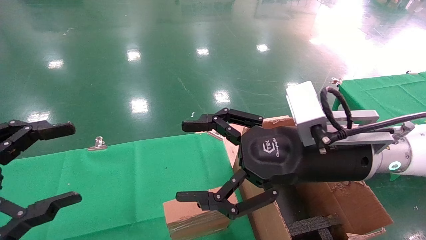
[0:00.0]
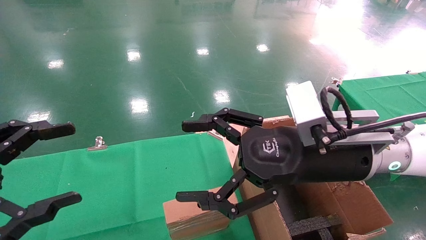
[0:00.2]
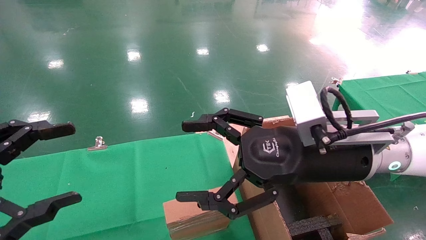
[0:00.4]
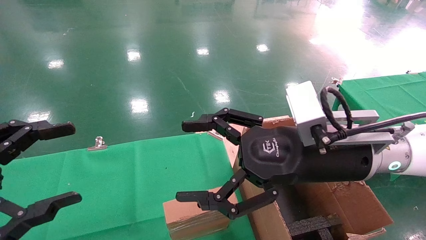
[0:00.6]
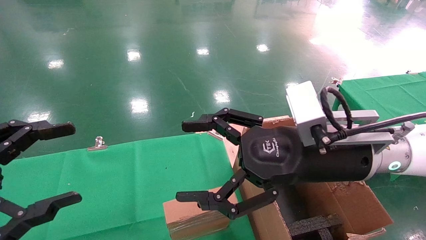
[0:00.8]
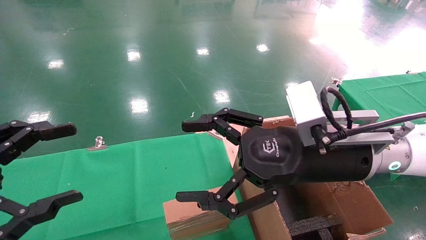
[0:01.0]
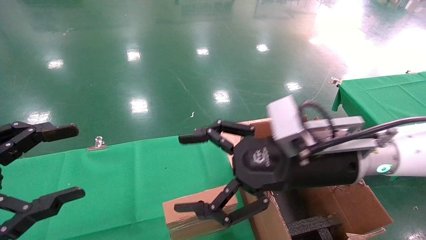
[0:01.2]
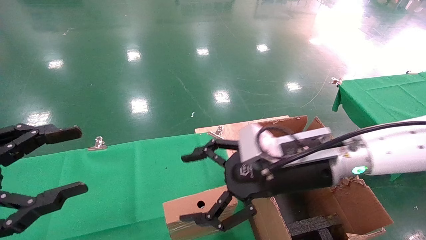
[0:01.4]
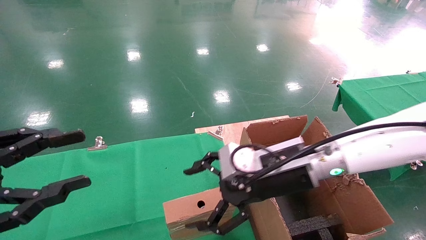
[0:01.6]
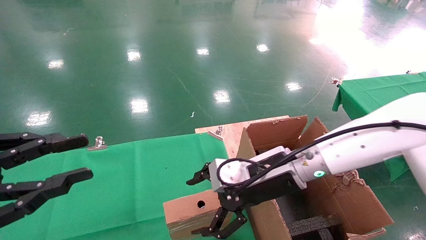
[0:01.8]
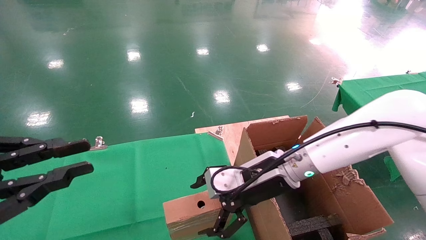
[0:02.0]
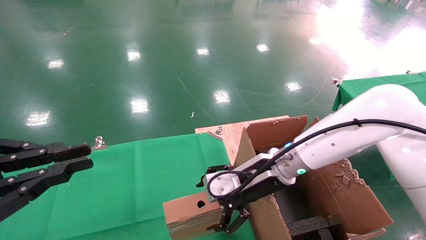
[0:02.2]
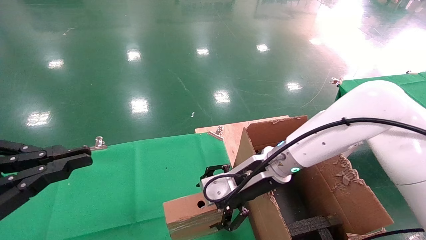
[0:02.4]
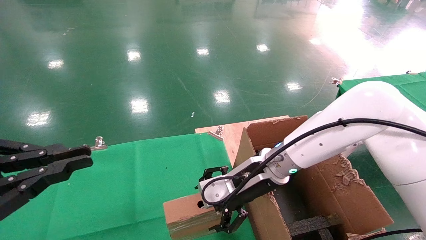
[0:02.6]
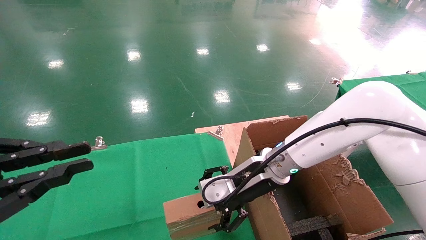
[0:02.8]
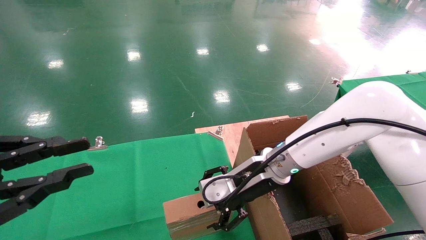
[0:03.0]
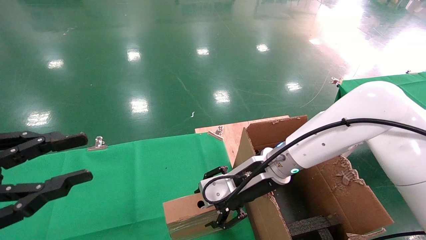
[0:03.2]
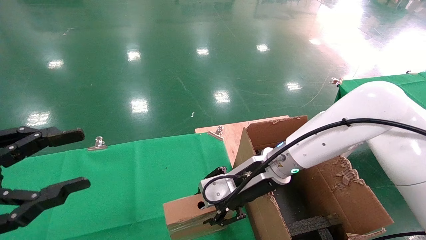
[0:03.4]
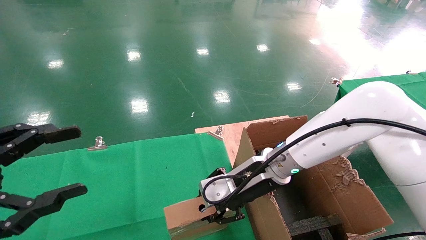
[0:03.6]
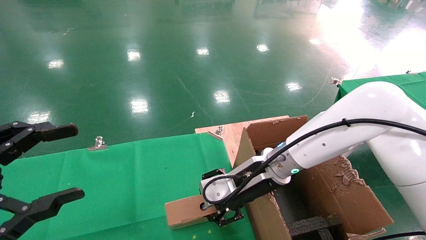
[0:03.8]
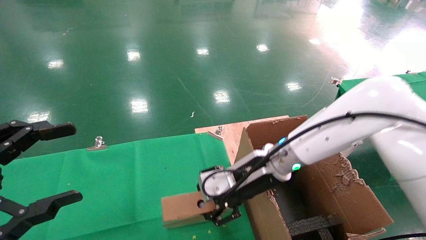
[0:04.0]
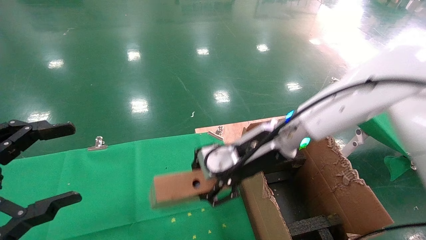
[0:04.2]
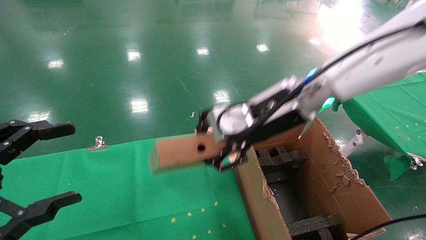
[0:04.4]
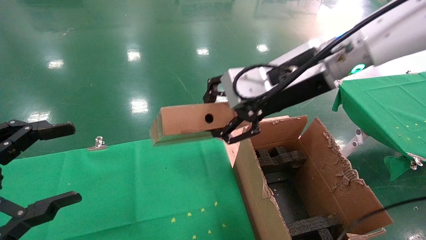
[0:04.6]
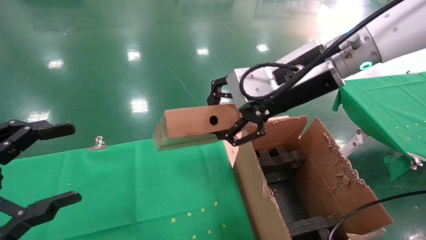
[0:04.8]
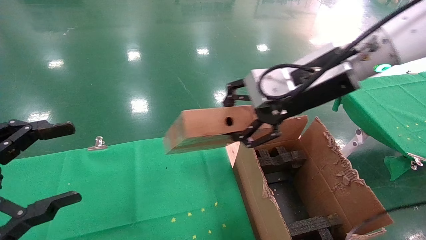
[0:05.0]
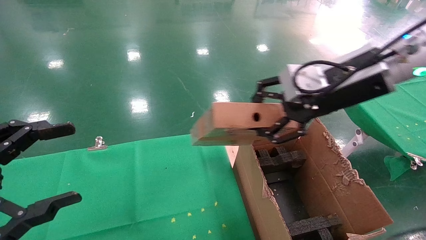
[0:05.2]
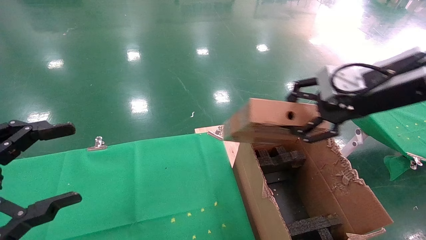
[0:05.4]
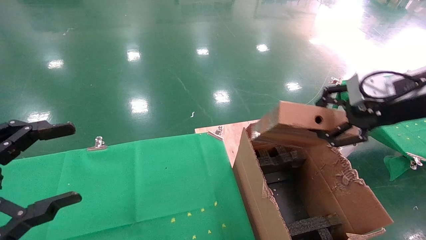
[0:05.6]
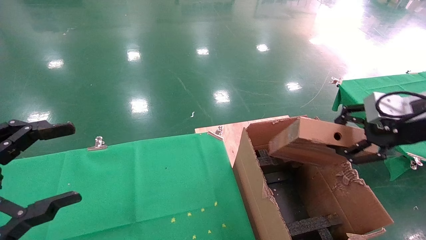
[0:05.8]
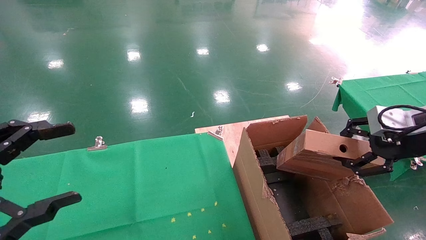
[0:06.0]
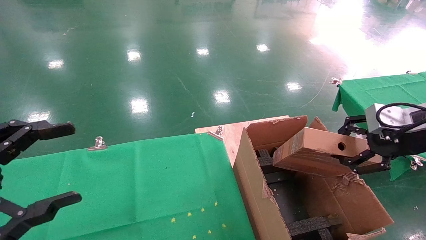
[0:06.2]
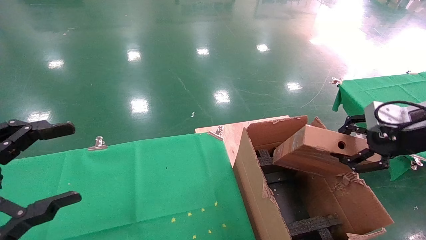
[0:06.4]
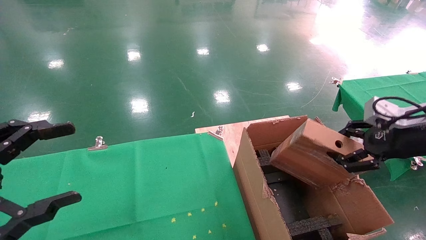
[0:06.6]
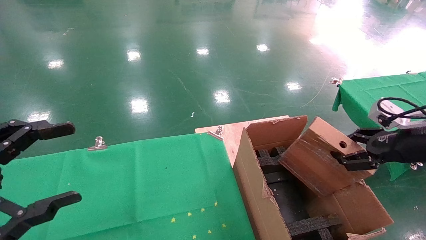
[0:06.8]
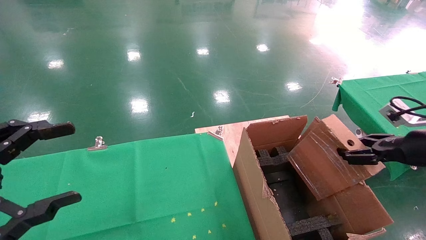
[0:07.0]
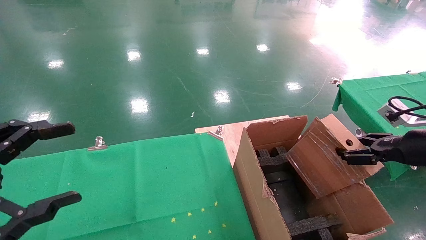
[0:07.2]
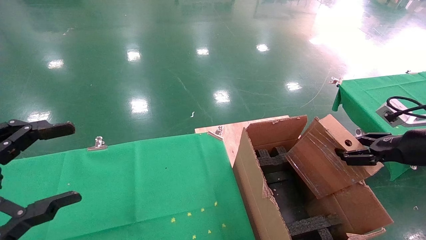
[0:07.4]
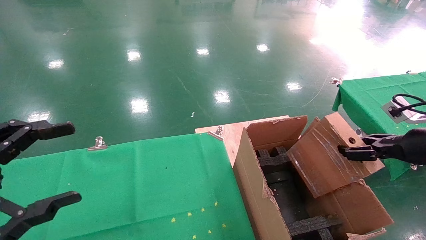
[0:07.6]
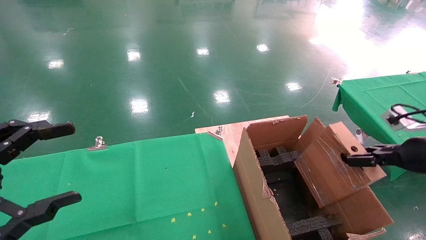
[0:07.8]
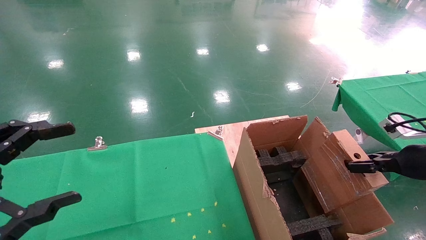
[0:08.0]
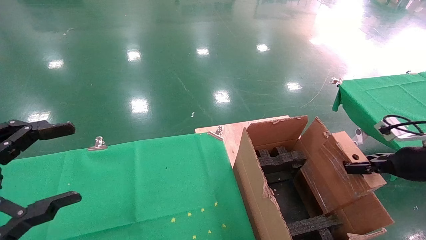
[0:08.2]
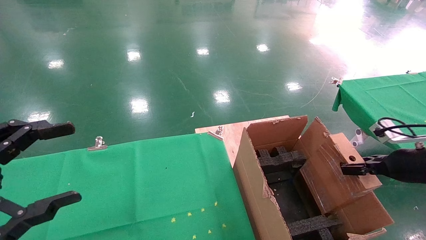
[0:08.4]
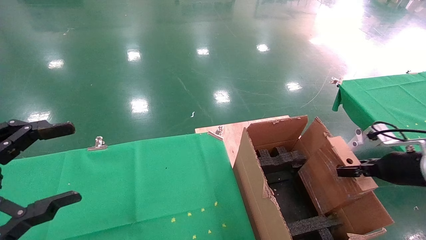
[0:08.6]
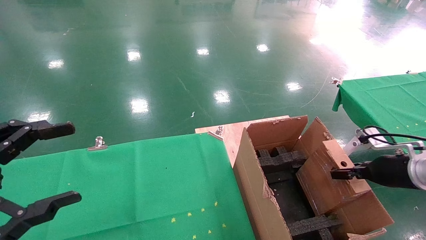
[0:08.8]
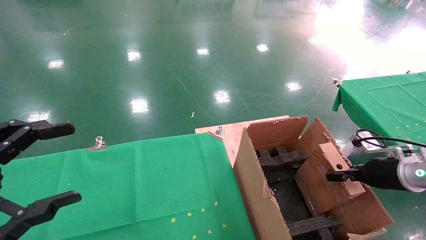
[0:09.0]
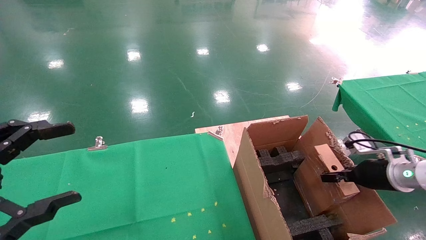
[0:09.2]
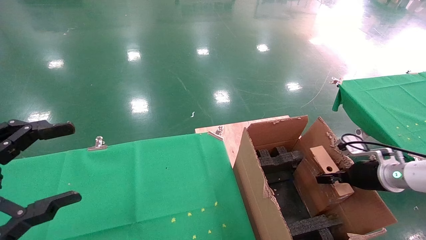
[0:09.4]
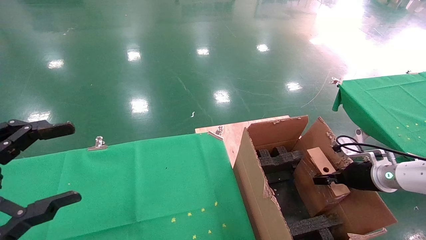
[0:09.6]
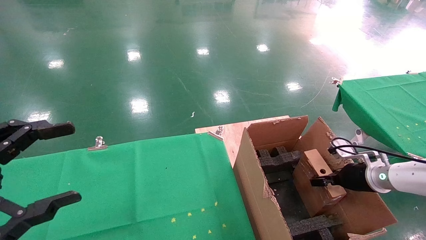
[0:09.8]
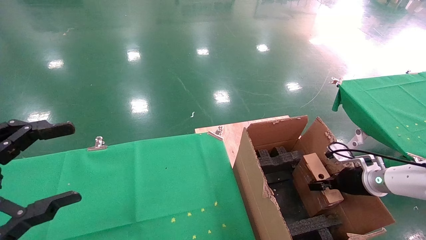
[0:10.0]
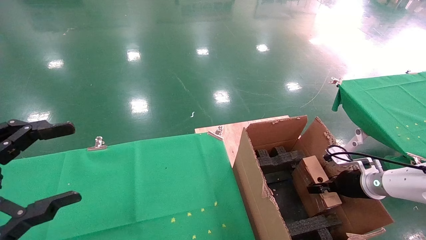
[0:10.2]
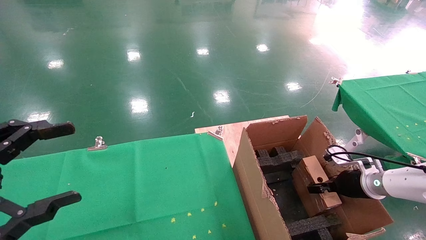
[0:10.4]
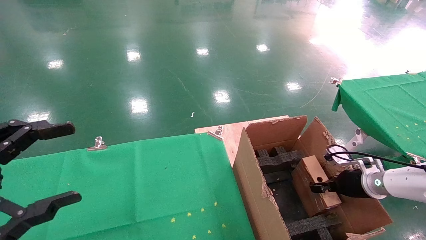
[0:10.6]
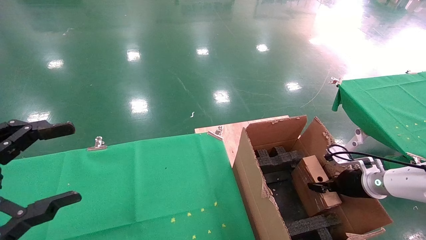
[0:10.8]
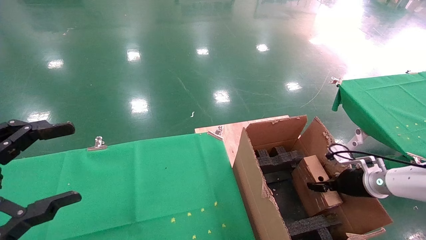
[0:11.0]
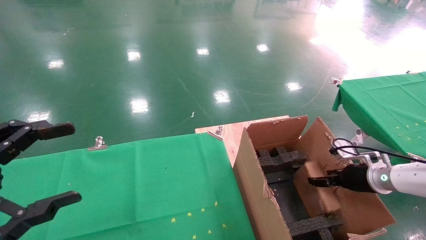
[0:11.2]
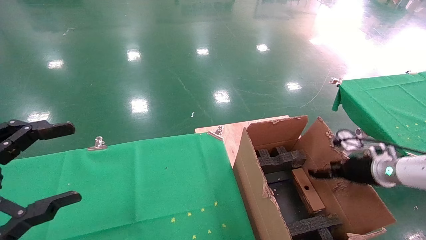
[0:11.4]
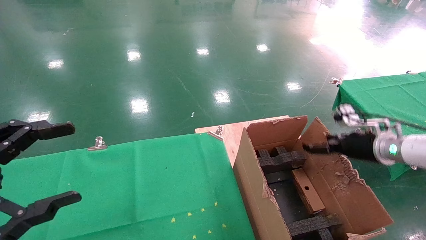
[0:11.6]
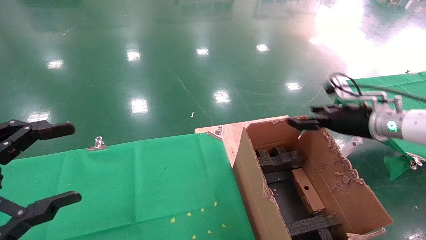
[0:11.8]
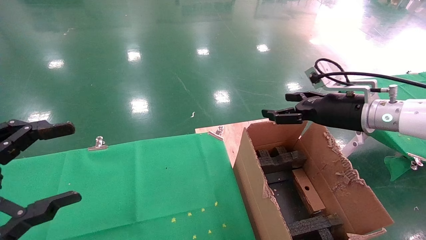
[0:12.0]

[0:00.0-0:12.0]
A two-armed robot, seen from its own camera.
Task of the whole recording: using a robotic arm to pick up a cardboard box and palace it the carton.
Step, 0:01.2 to 0:03.6: Pick up the mouse and the power cord paper box.
Step, 0:03.8 to 0:11.8: Place the mouse and the power cord paper box into the container.
0:00.0 to 0:01.6: The right gripper moves forward and downward, roughly 10 cm; the left gripper closes up.
0:01.6 to 0:03.0: The right gripper changes place by some 5 cm; the left gripper closes up.
0:03.0 to 0:04.4: The left gripper opens, while the right gripper travels upward by roughly 15 cm, and closes its fingers.
0:04.4 to 0:06.0: The right gripper goes roughly 25 cm to the right.
0:06.0 to 0:07.6: The right gripper is displaced downward and to the right by about 10 cm.
0:07.6 to 0:09.0: The right gripper travels downward and forward by some 10 cm.
0:09.0 to 0:10.4: The right gripper travels downward by some 5 cm.
0:10.4 to 0:12.0: The right gripper heads upward and to the left, covering some 20 cm, and opens up.

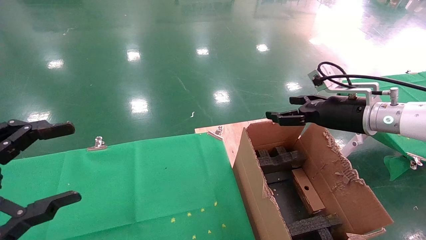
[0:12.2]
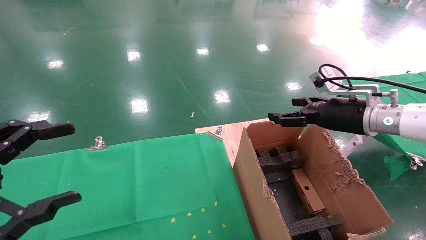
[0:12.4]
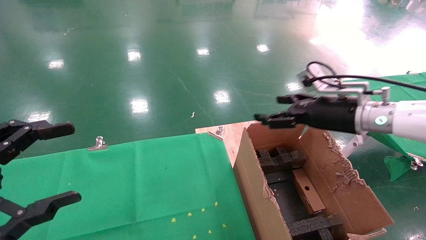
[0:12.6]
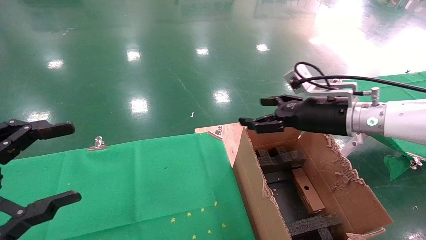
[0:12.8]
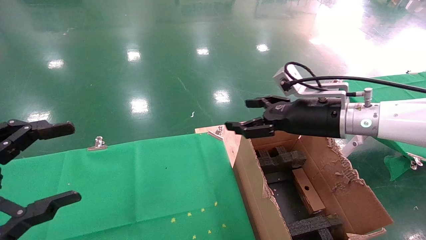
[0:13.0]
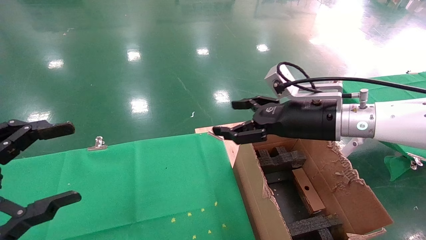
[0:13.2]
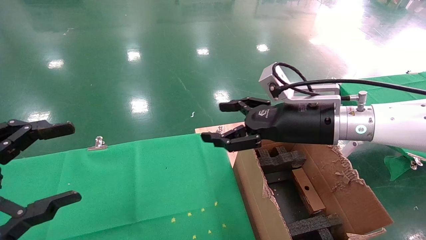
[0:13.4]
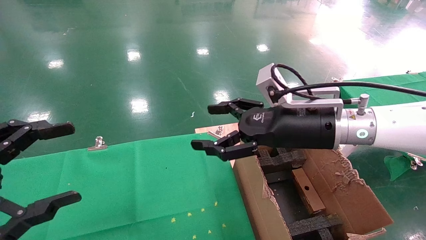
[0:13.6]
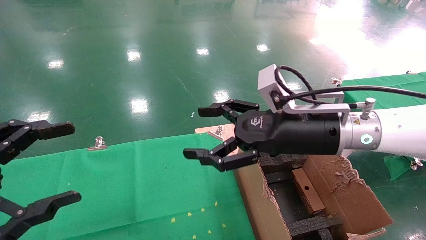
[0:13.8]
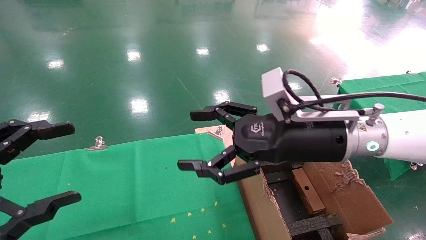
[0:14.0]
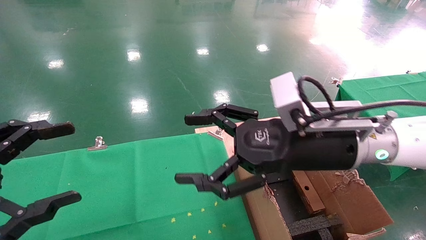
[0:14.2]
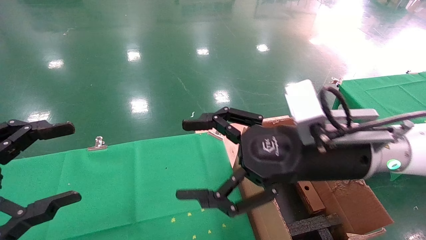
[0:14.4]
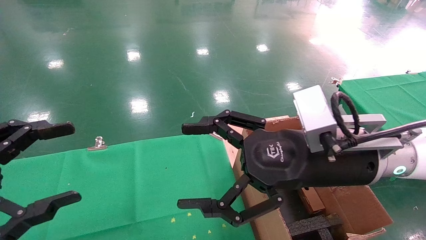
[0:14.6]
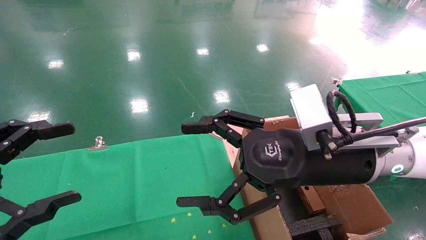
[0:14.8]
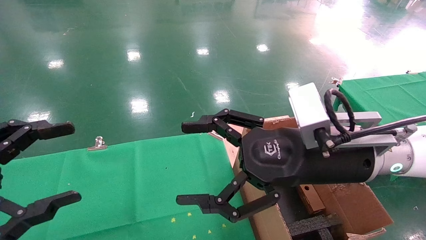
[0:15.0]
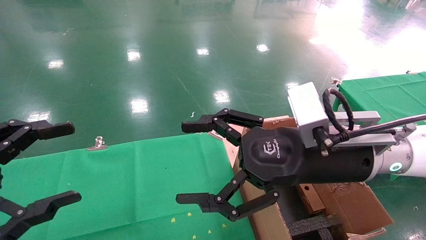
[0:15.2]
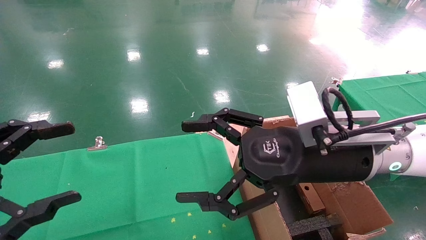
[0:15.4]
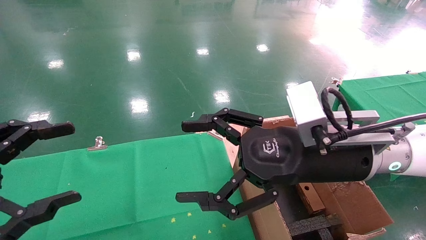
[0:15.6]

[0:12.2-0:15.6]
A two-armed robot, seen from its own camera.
Task of the whole recording: using a robotic arm to pick up a cardboard box and palace it the carton.
0:12.2 to 0:13.8: The right gripper heads to the left and backward, covering roughly 15 cm.
0:13.8 to 0:15.6: The right gripper changes place by roughly 5 cm.
